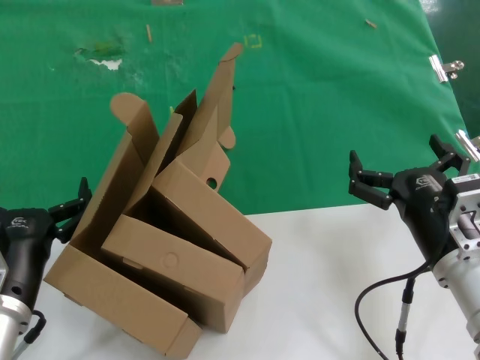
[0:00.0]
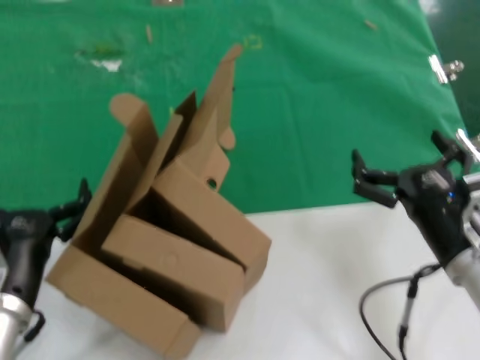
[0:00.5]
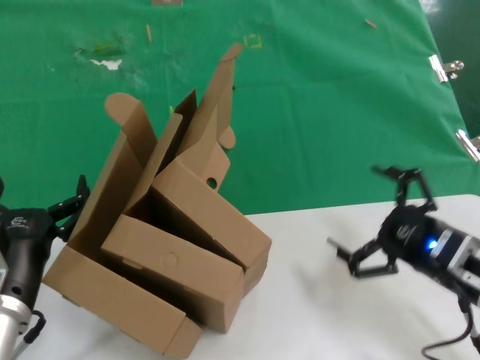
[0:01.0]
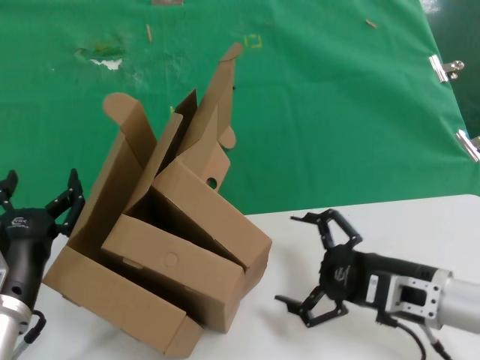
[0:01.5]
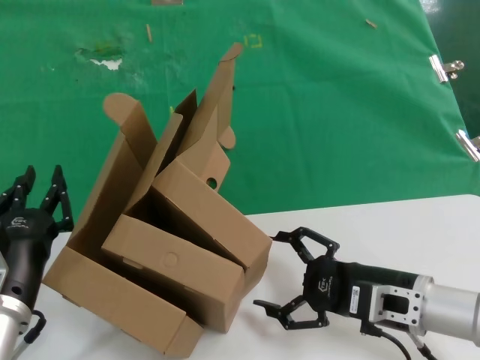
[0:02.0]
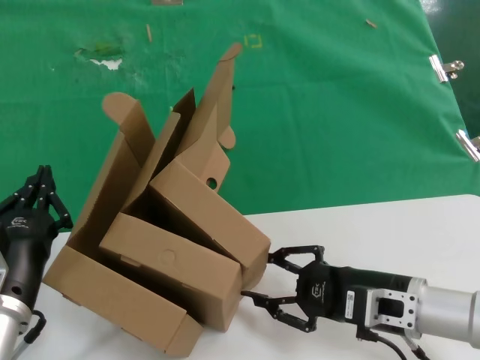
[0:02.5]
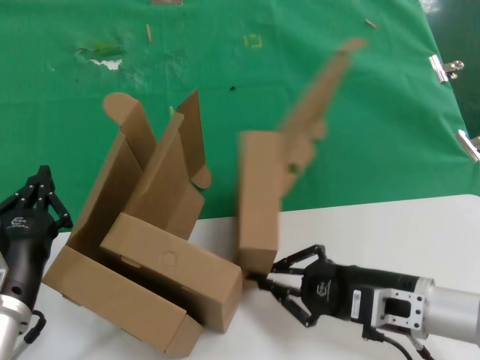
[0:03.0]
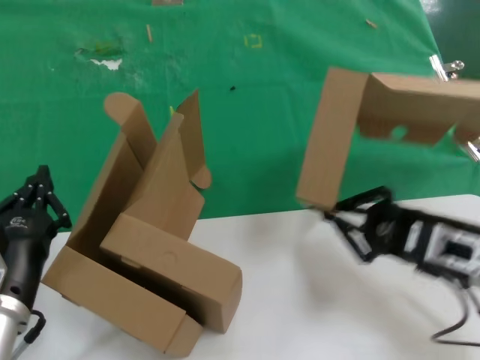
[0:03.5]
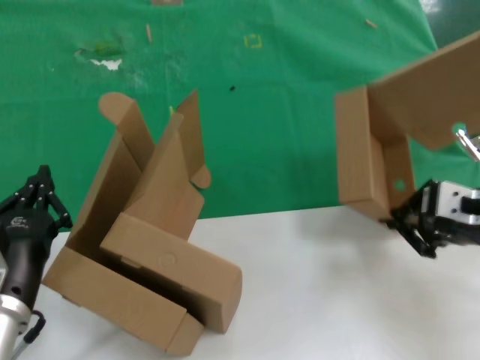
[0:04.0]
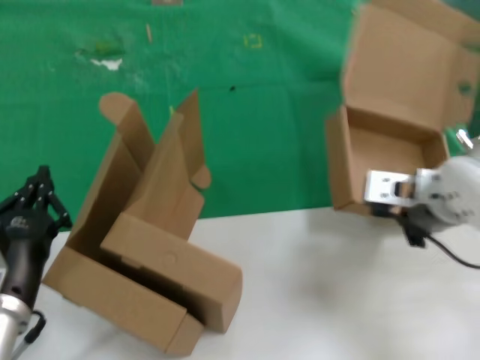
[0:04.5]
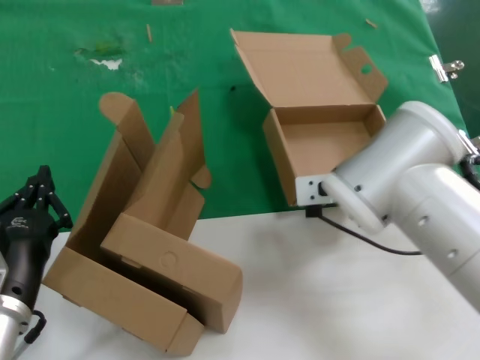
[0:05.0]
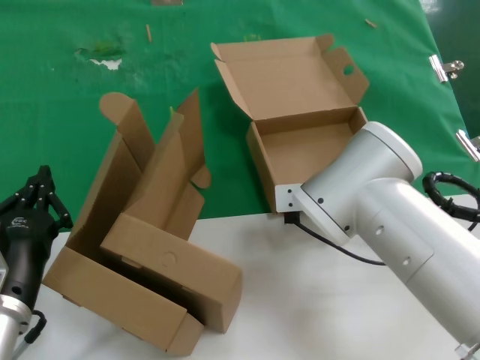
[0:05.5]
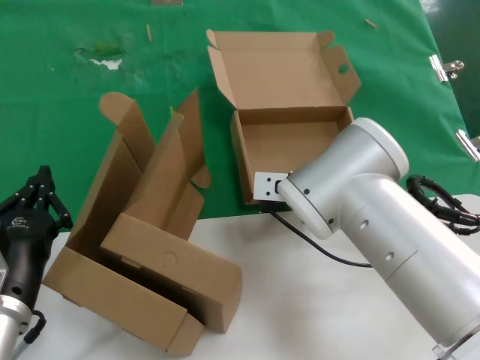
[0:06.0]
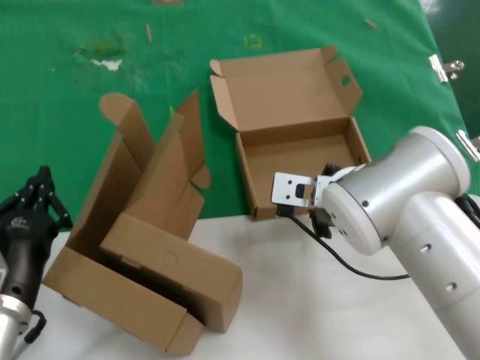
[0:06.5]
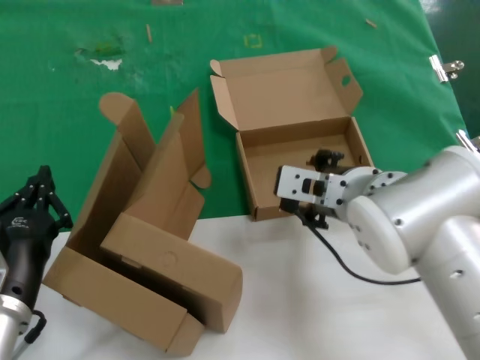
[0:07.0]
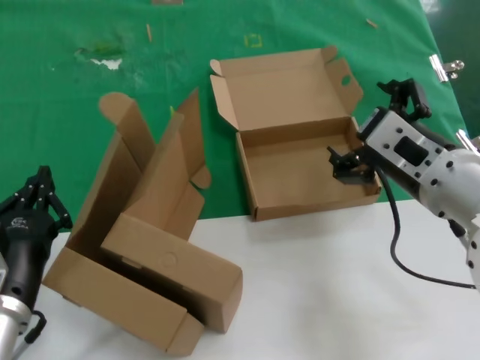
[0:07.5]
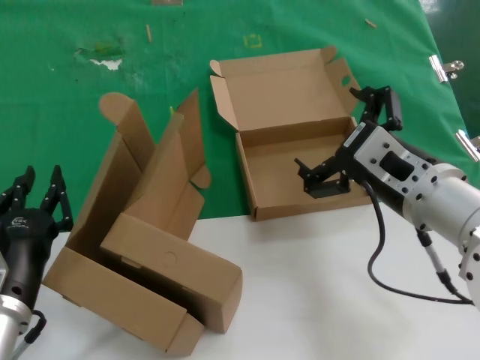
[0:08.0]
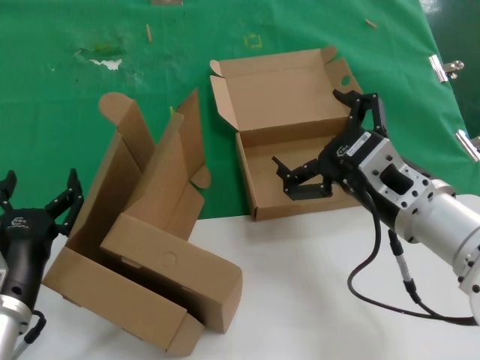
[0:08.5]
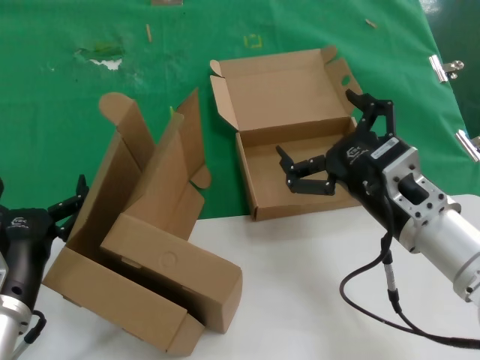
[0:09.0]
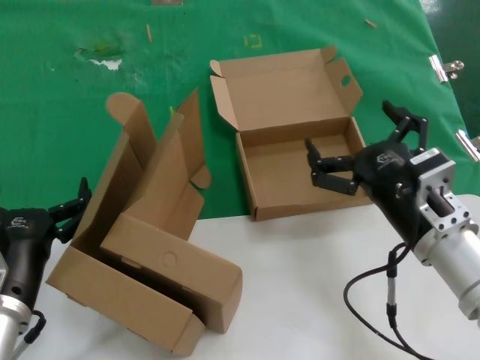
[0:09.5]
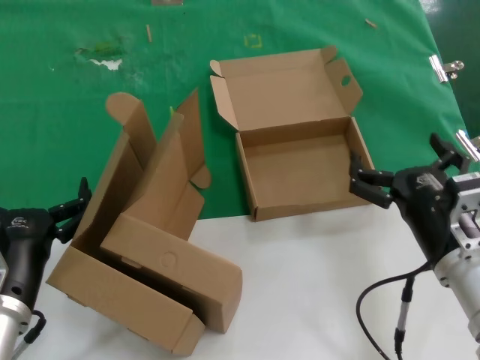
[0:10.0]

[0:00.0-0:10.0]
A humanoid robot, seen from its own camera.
Task of the whole recording: pick up the paper box and put it at the back.
Step, 0:00.0 to 0:03.0: Grasp the paper box.
Step, 0:03.5 to 0:06.5: Place the paper box on the table.
0:00.0 to 0:02.0: The right hand goes to the right and returns, some 10 cm each way.
0:02.0 to 0:04.0: The right hand moves upward and to the right, approximately 15 cm.
0:04.0 to 0:06.0: The right hand heads to the left and forward, covering some 25 cm.
0:06.0 to 0:08.0: The right hand goes approximately 15 cm backward and to the right.
0:08.0 to 0:10.0: The right hand heads downward, covering roughly 10 cm.

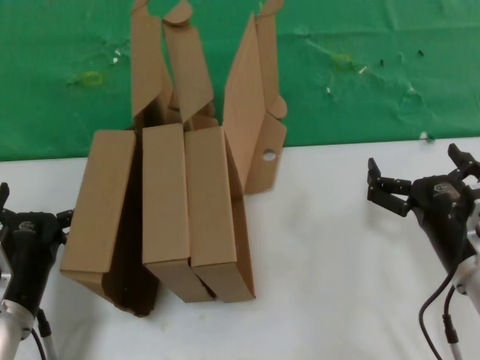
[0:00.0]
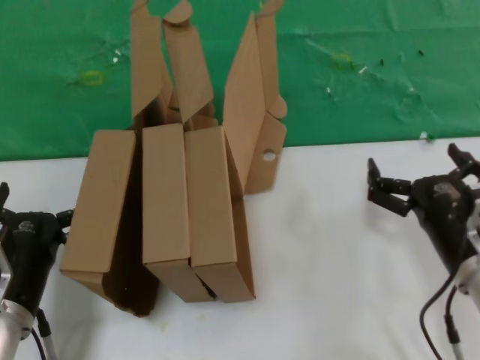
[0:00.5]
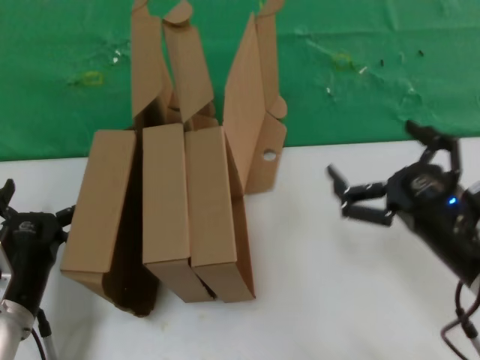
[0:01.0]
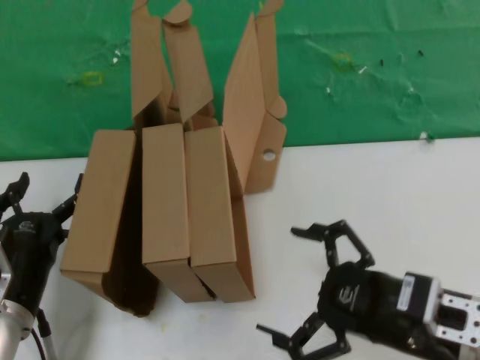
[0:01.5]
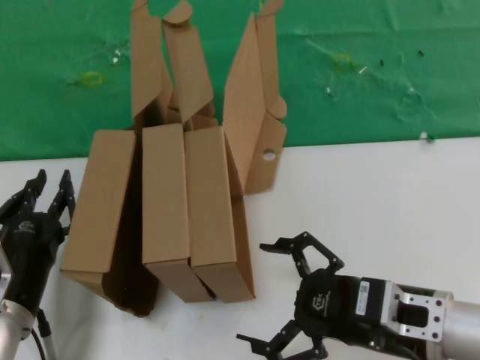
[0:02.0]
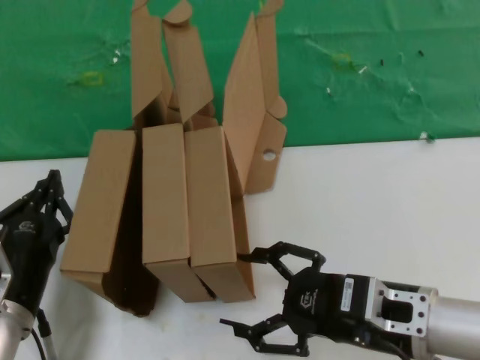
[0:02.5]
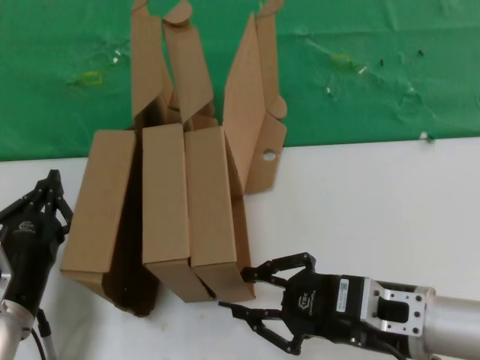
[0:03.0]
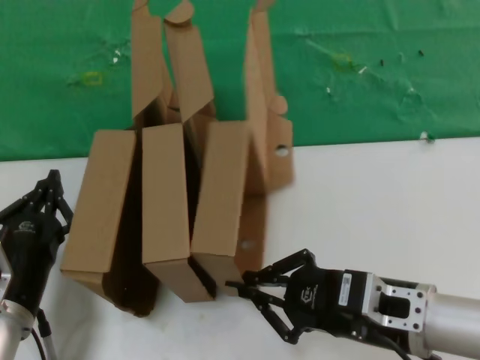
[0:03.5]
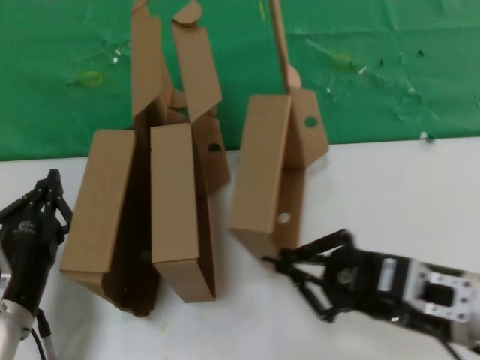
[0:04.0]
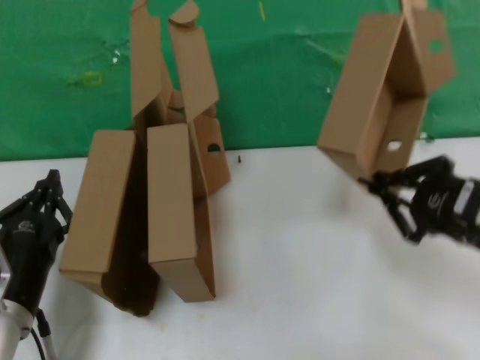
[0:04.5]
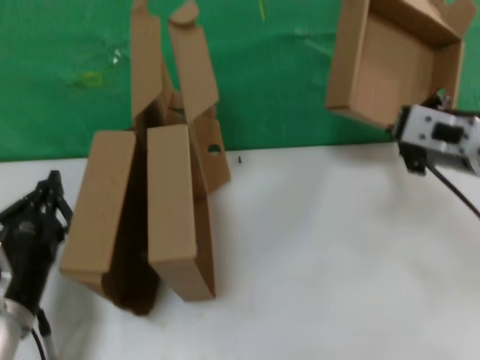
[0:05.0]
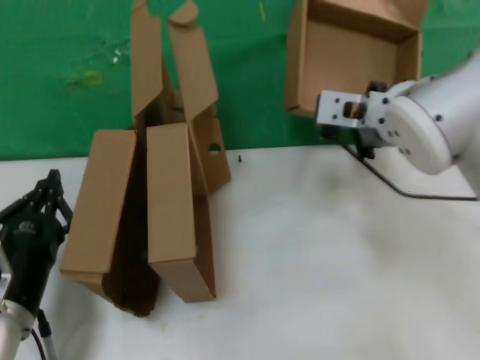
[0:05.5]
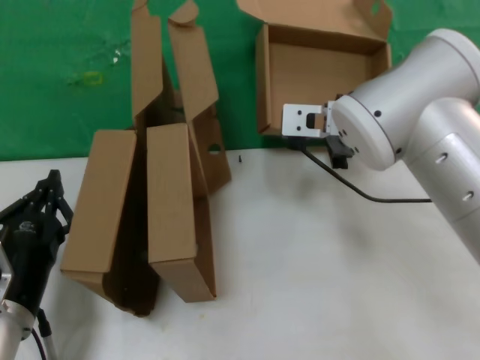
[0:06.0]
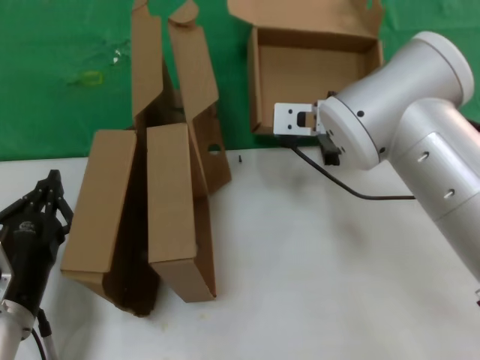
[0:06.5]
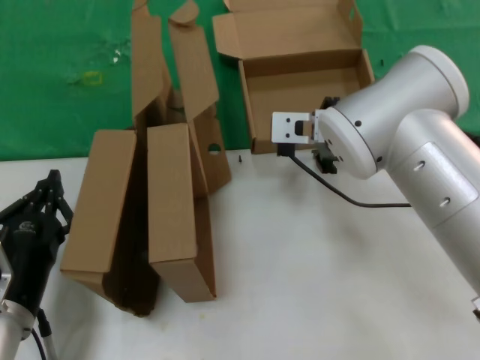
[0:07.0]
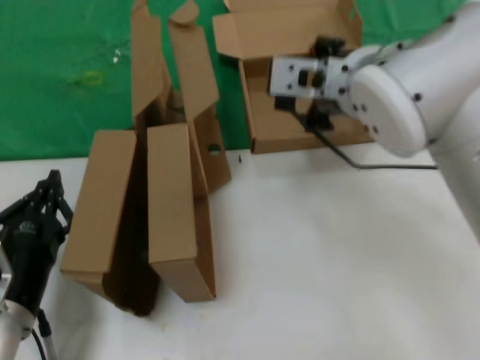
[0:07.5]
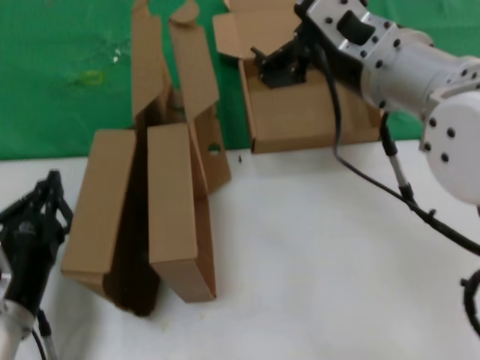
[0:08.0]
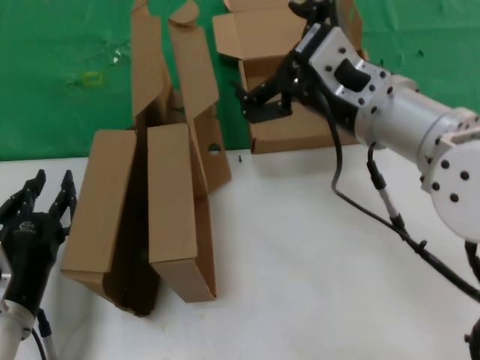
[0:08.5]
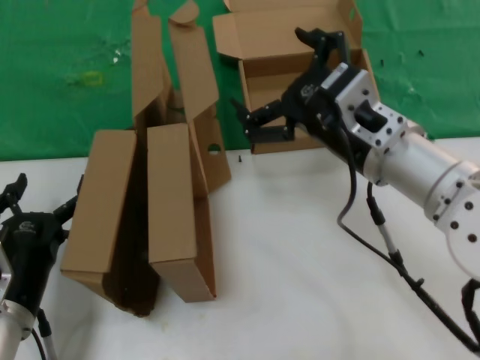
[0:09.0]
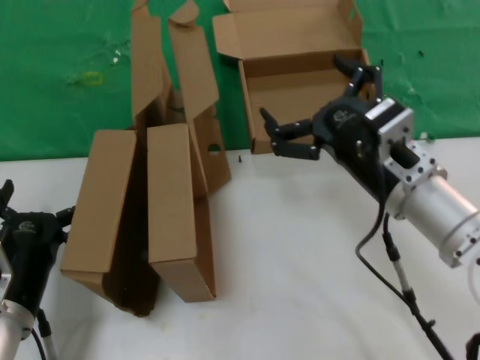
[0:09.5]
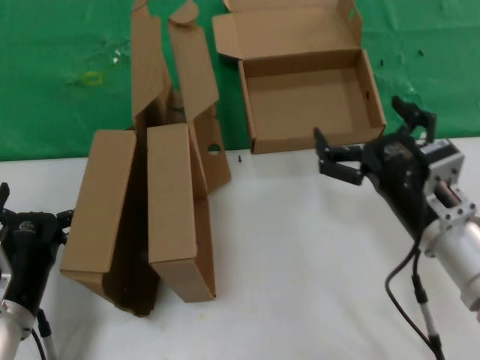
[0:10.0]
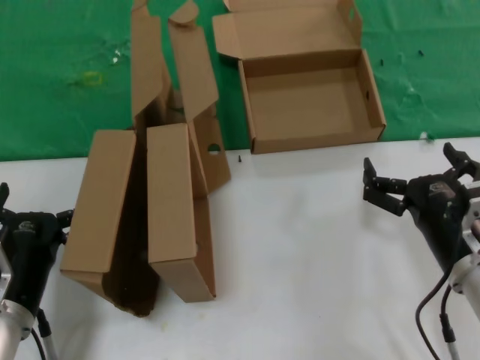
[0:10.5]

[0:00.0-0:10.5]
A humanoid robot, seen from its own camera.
Task of the whole recording: pick up the paper box and put it at the back.
Step, 0:00.0 to 0:03.5: Grasp the paper box.
Step, 0:04.0 to 0:06.5: Place the paper box on the table.
0:00.0 to 0:02.0: The right hand is displaced upward by approximately 5 cm.
0:04.0 to 0:06.5: The right hand travels forward, to the left and upward by approximately 25 cm.
0:06.5 to 0:08.5: The right hand moves backward, about 10 cm.
0:08.5 to 0:10.5: The right hand shifts roughly 20 cm downward and to the right.

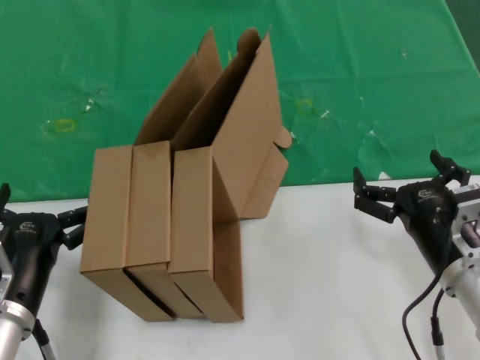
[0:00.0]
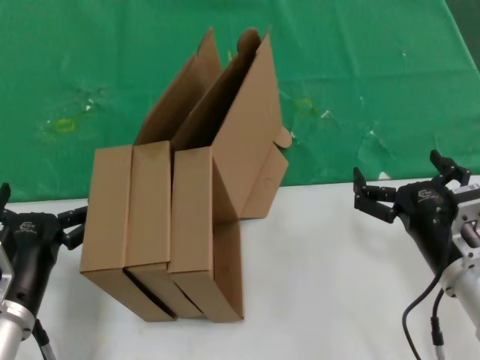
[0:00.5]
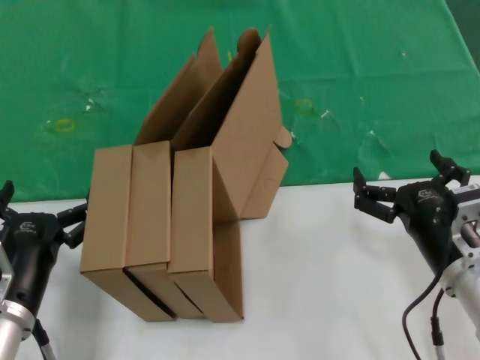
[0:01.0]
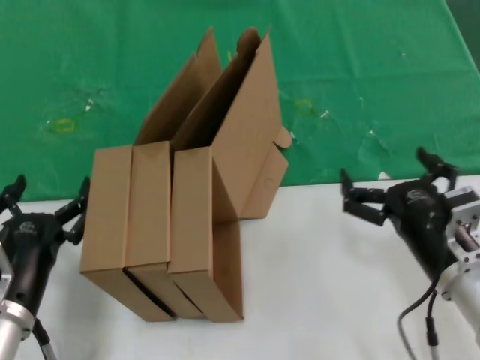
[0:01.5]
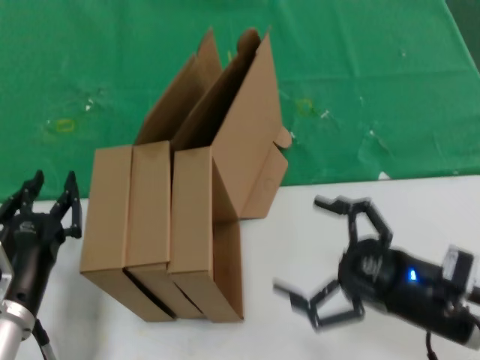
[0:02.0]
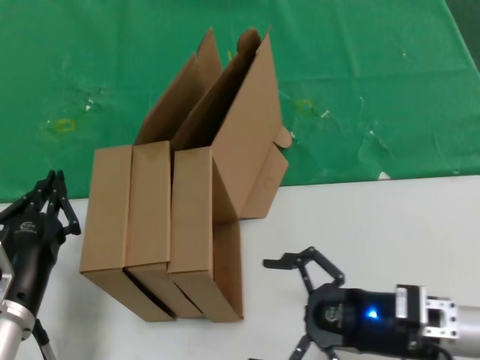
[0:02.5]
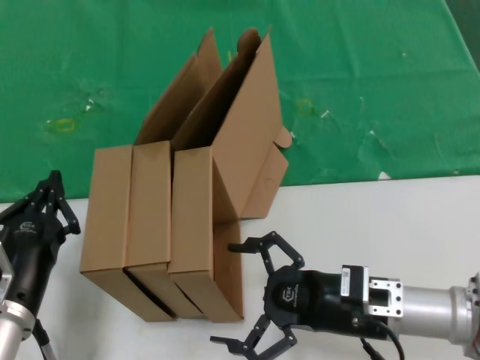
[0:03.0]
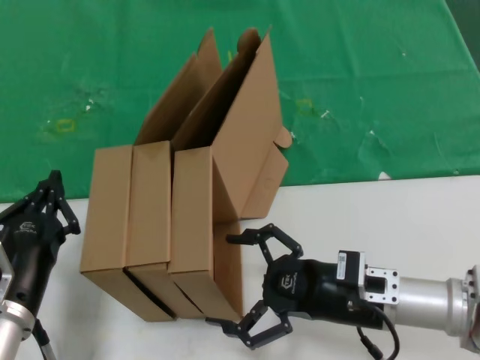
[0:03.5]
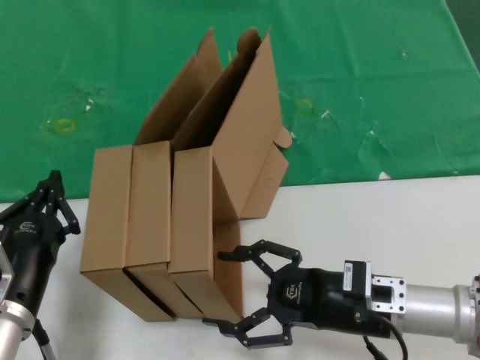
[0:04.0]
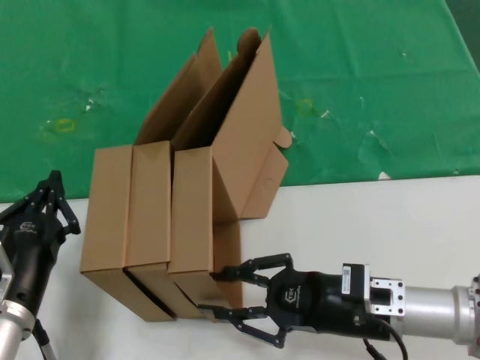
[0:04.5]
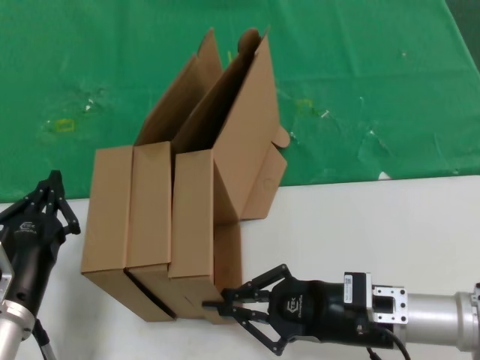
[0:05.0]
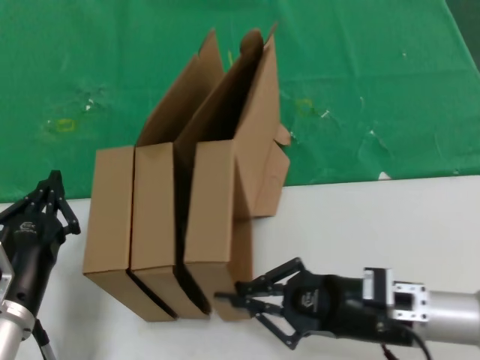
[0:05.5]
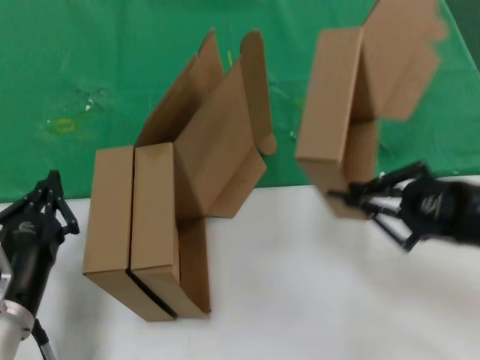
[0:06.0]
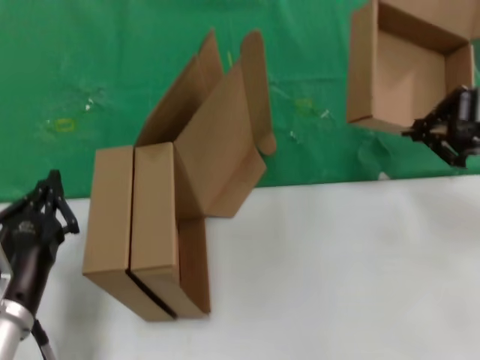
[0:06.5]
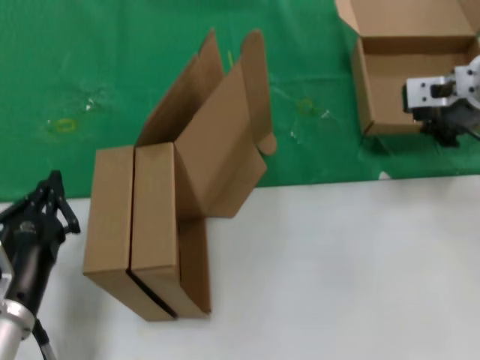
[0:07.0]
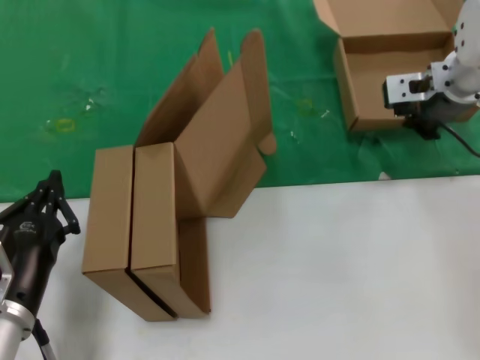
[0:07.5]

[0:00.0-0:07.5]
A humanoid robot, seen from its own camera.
Task of the whole recording: pick up the paper box and put it at the back.
Step, 0:00.0 to 0:05.0: Grasp the paper box.
0:02.0 to 0:04.0: The right hand moves to the left and forward, approximately 10 cm.
0:04.0 to 0:05.5: The hands make only small movements.
0:05.5 to 0:07.5: The right hand moves forward and upward, roughly 30 cm.
